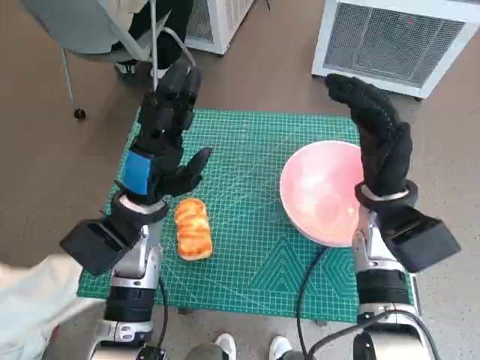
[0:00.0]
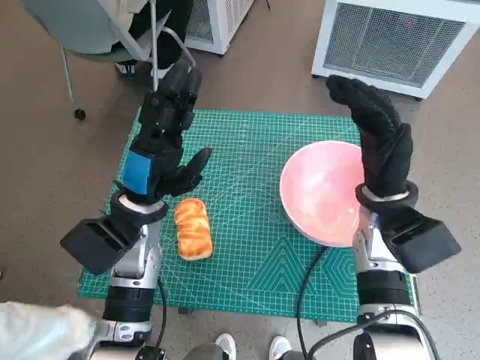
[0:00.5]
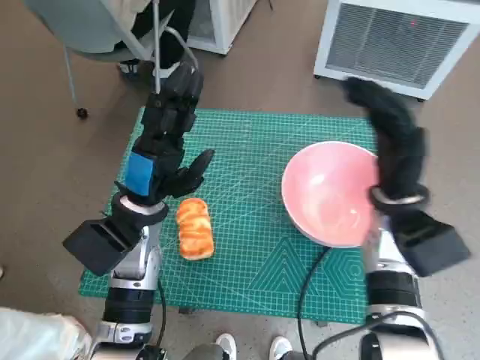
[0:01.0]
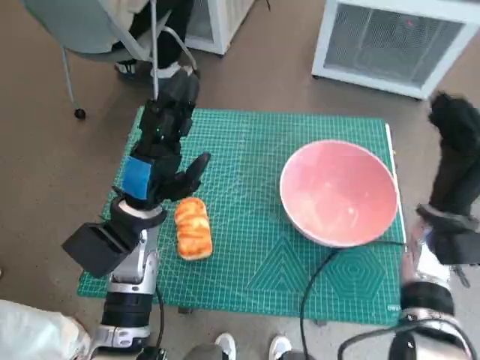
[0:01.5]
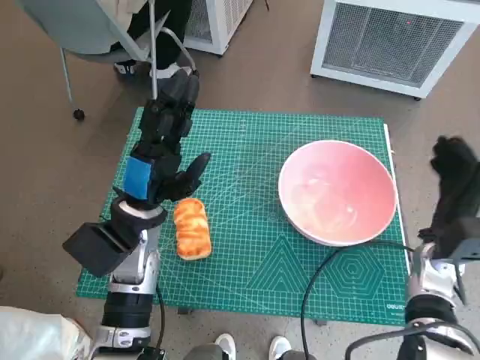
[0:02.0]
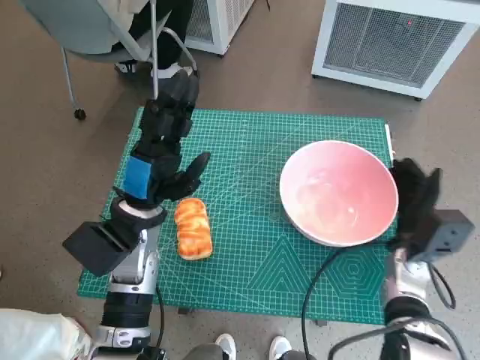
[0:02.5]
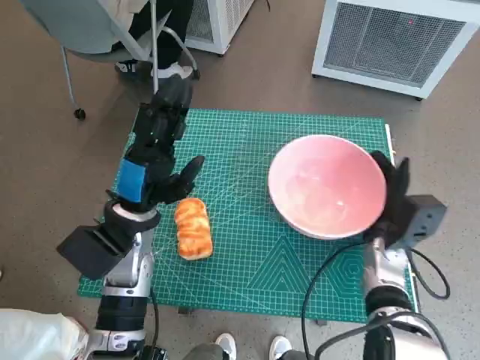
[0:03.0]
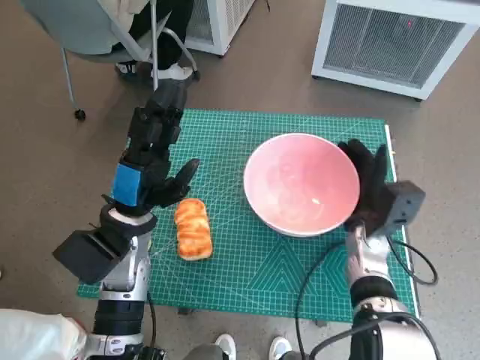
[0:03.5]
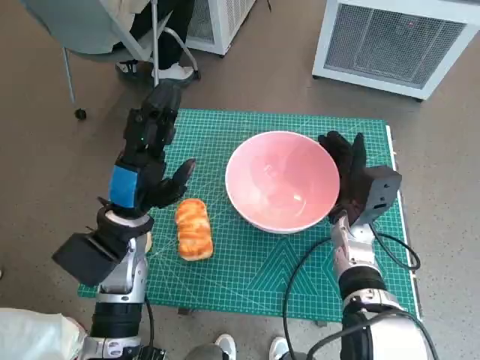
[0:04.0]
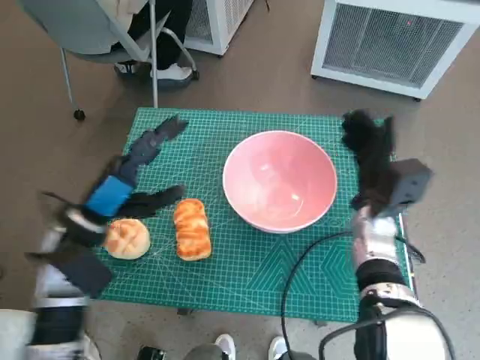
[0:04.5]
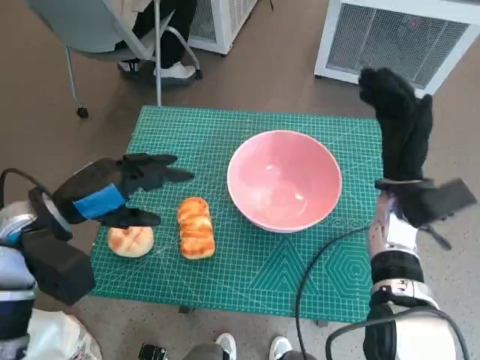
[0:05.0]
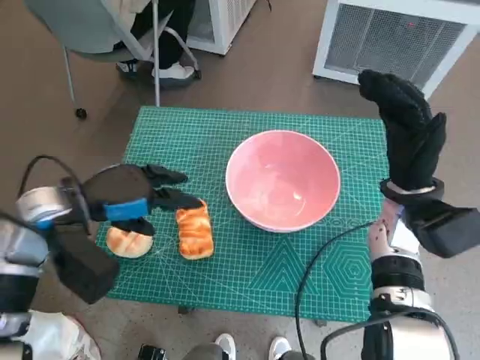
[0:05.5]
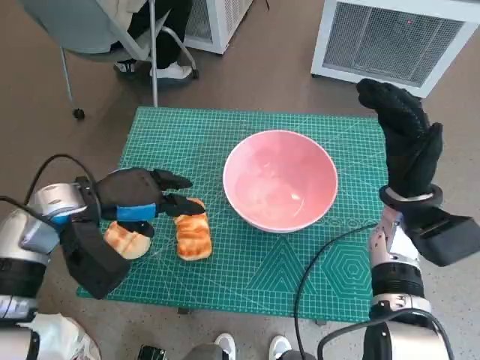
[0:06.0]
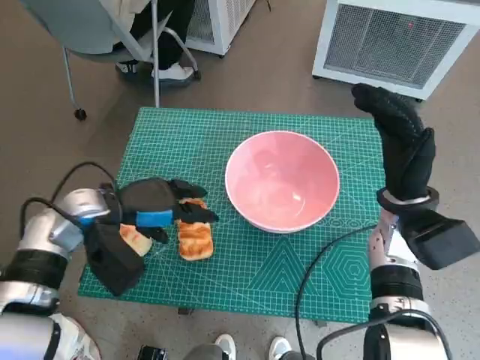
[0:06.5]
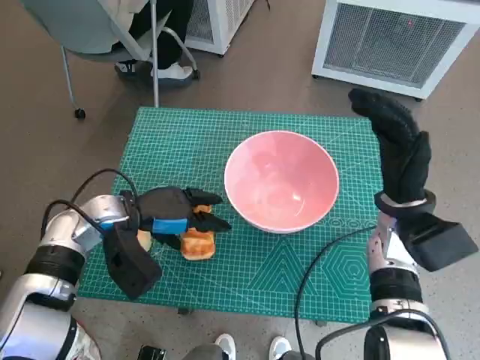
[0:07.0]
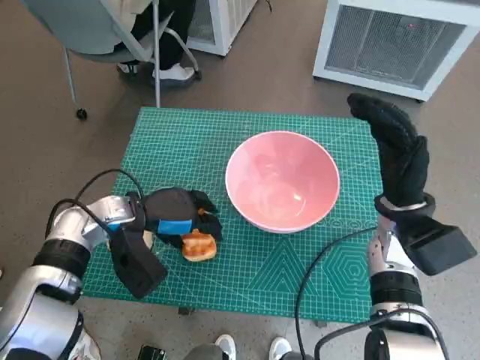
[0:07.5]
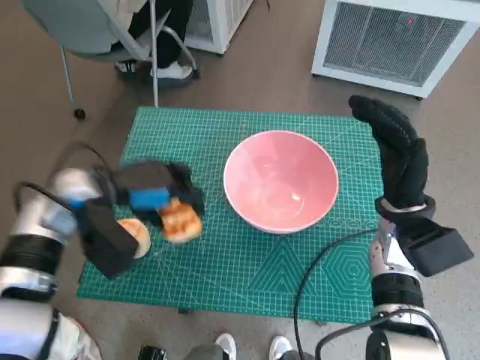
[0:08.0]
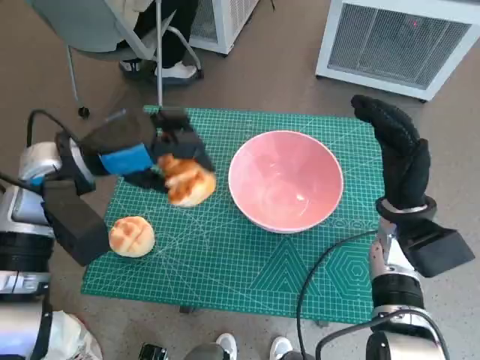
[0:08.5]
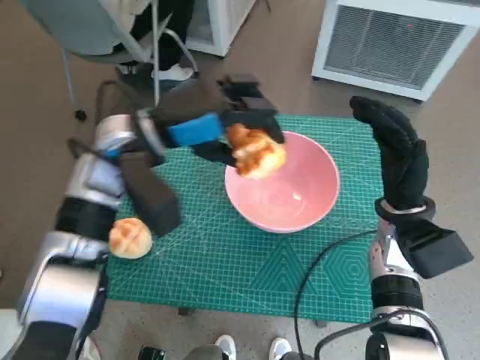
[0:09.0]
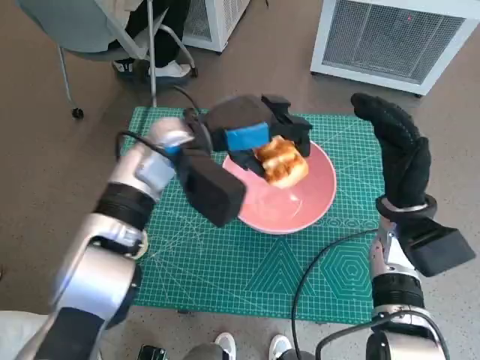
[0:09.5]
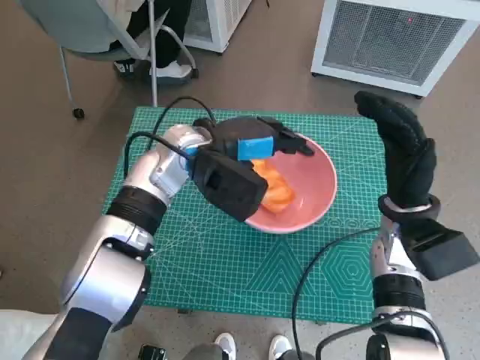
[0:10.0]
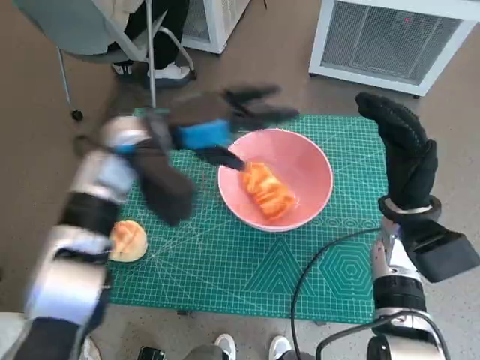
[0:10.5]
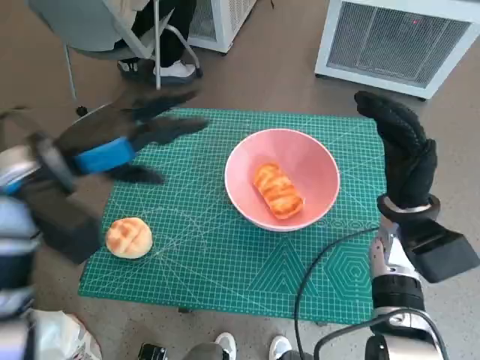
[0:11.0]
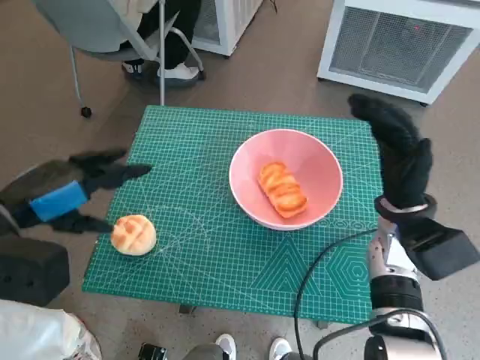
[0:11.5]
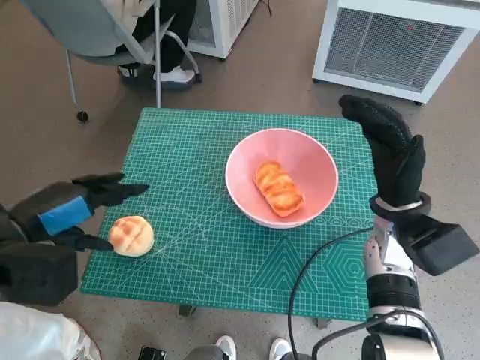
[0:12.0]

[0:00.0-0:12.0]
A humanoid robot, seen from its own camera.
Task of the whole recording: Push the bowl to the center of the table and put the bread into the bowl.
Step, 0:00.0 to 0:04.5: Move the pink bowl to the center of table with right hand.
Step, 0:05.0 to 0:07.5: Grasp the long bread with left hand.
Step, 0:08.0 to 0:10.5: Place the long bread in pink bowl with left hand.
0:02.0 to 0:04.0: The right hand goes about 10 cm to the left.
0:04.0 to 0:06.0: The right hand goes roughly 10 cm upward and to the right; the left hand heads to the left, covering approximately 5 cm.
0:08.0 to 0:10.0: The left hand is displaced to the right by approximately 15 cm.
0:10.0 to 0:12.0: The left hand travels to the left and backward by some 25 cm.

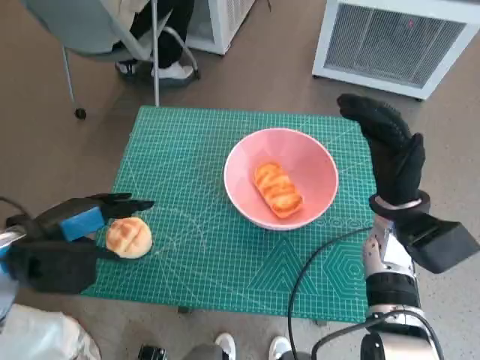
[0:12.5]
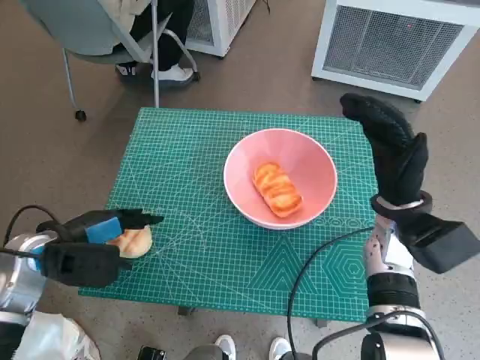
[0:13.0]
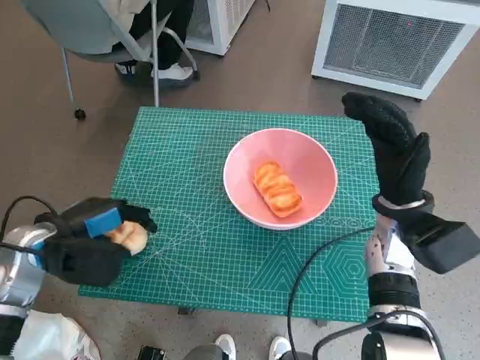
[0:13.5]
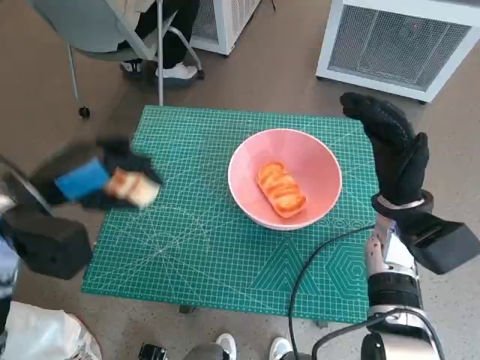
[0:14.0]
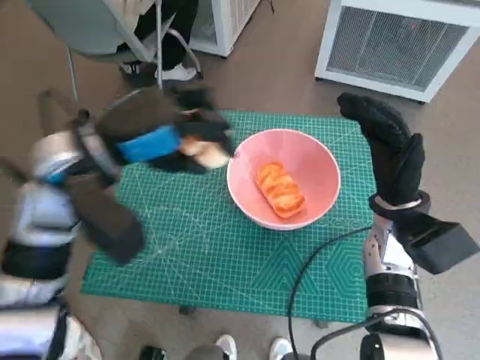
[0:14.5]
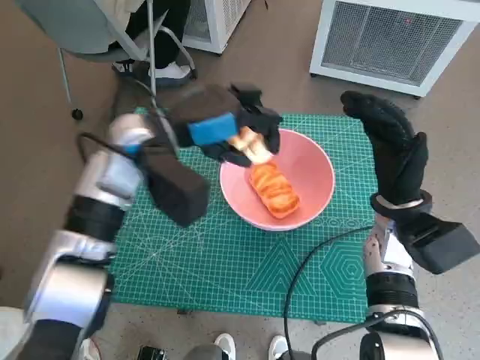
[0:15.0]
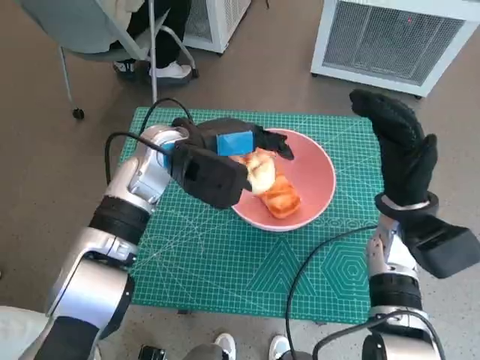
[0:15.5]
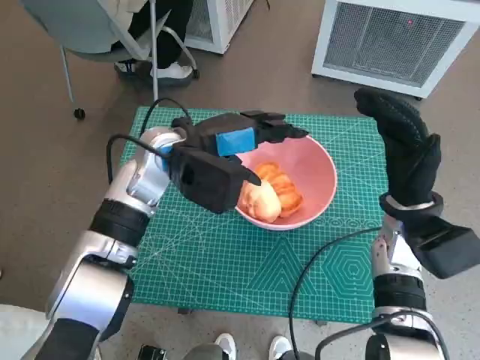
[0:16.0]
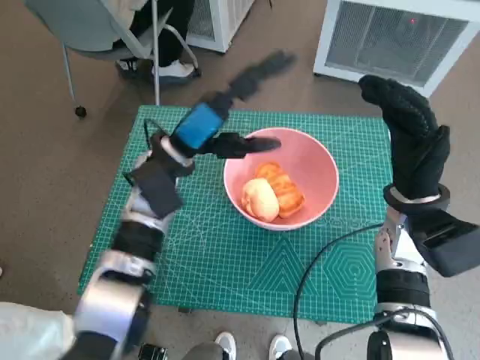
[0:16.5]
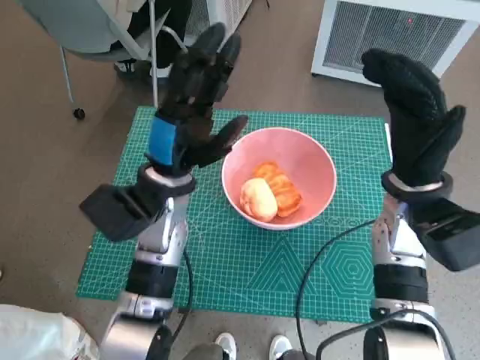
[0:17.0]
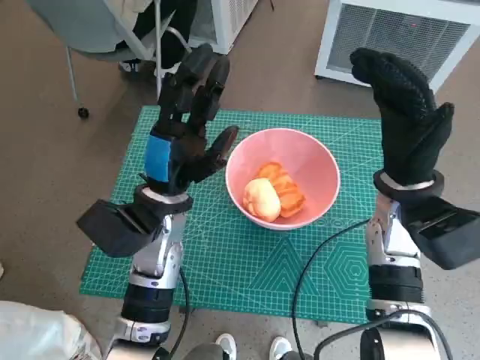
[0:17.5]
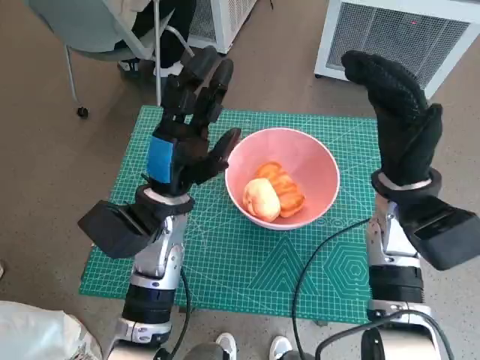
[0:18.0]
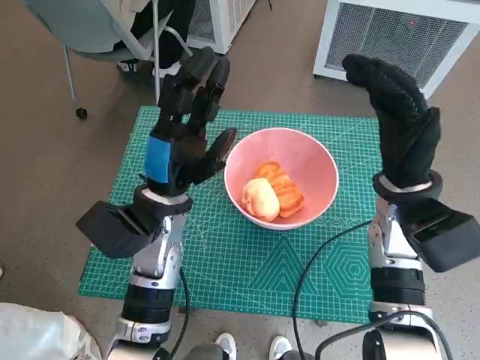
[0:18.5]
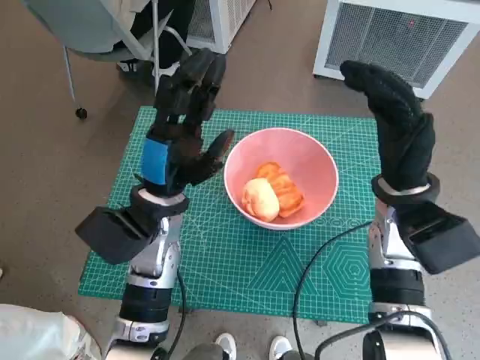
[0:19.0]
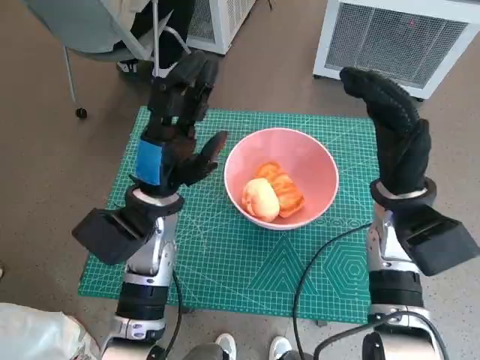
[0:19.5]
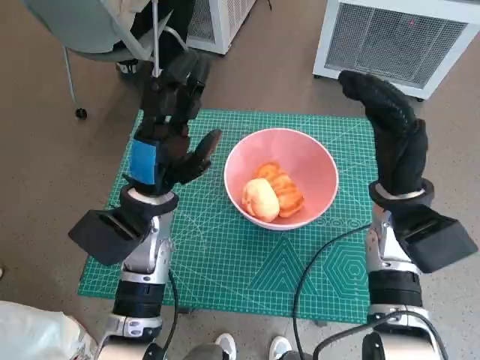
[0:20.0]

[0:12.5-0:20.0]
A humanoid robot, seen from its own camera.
Task of the whole recording: Push the bowl to the center of the table and put the bread into the bowl.
Step, 0:14.0 to 0:16.0: Place the round bread in pink bowl with left hand.
0:12.5 to 0:14.5: The left hand travels to the right, upward and forward by about 15 cm.
0:14.5 to 0:16.5: The left hand moves downward, to the right and forward, about 10 cm.
0:16.5 to 0:18.0: The left hand moves backward, about 5 cm.
0:18.0 to 0:20.0: The hands make only small movements.

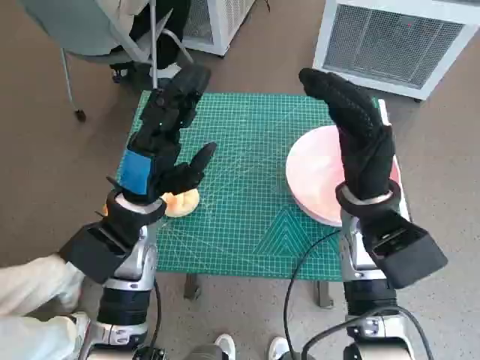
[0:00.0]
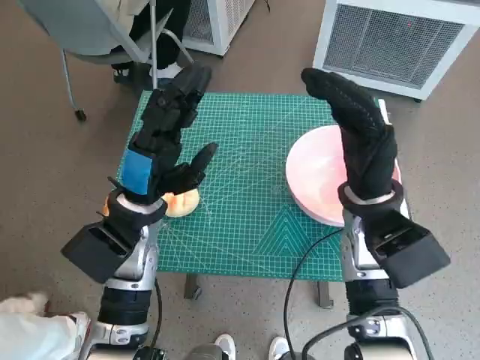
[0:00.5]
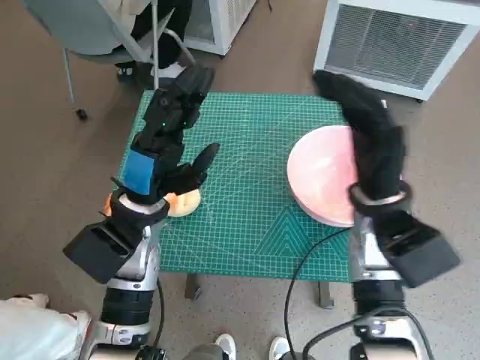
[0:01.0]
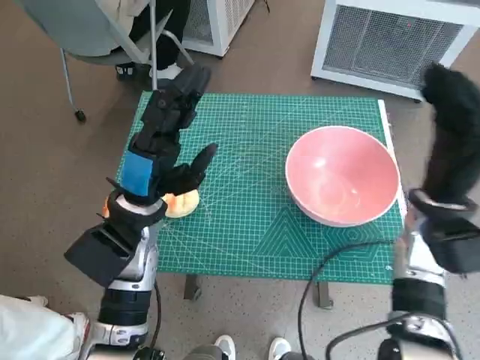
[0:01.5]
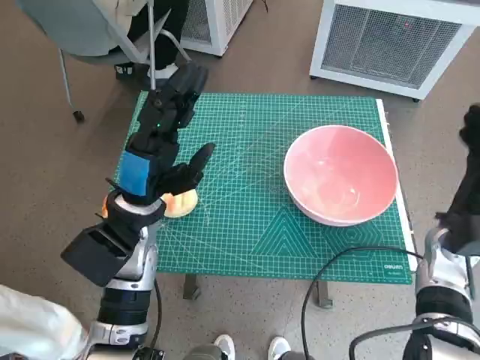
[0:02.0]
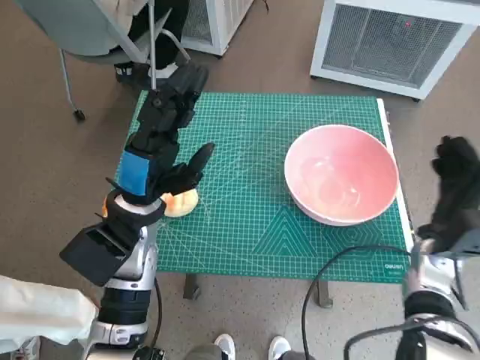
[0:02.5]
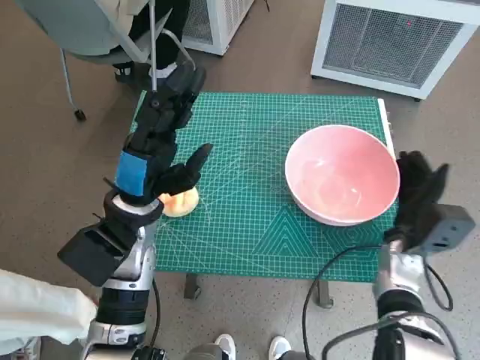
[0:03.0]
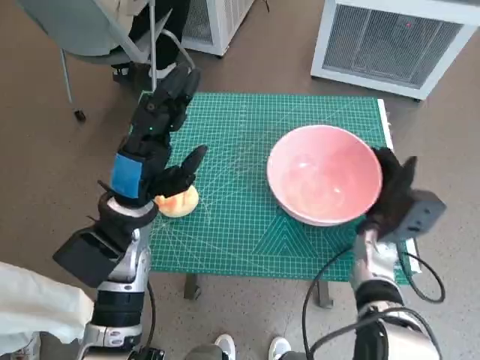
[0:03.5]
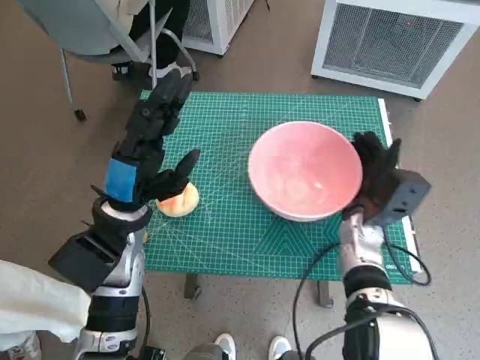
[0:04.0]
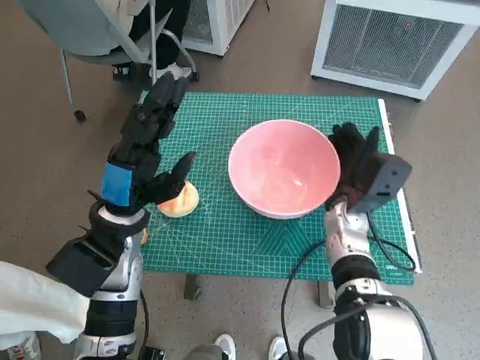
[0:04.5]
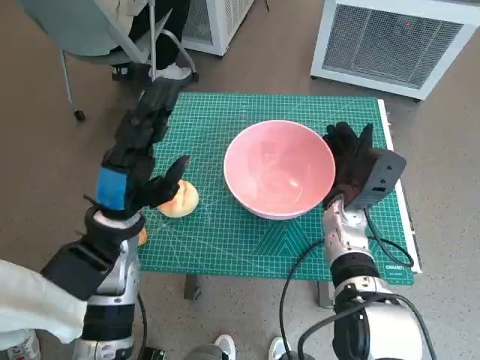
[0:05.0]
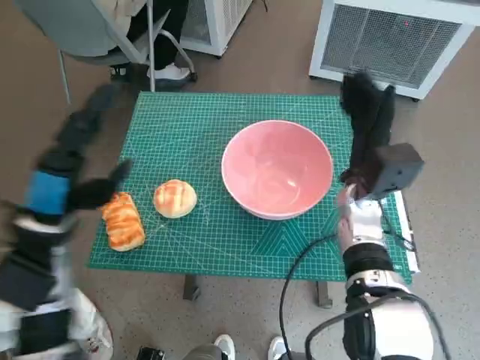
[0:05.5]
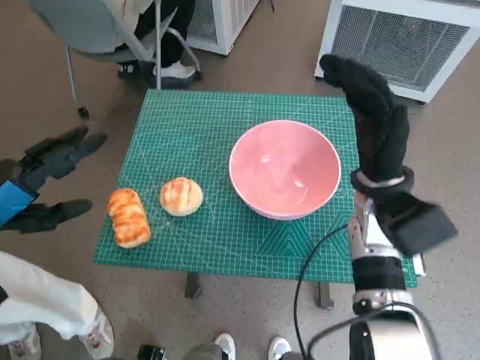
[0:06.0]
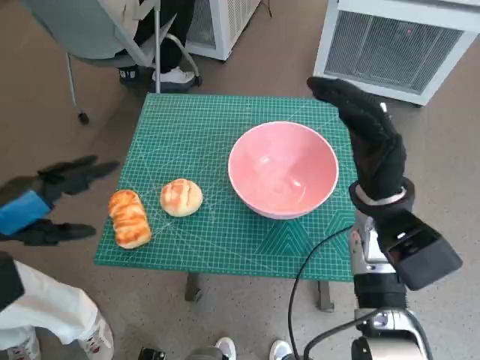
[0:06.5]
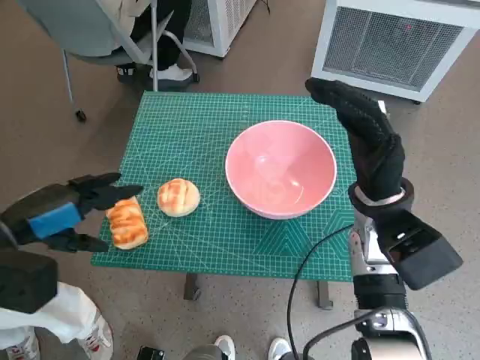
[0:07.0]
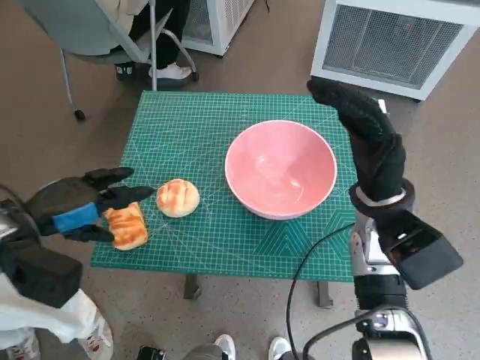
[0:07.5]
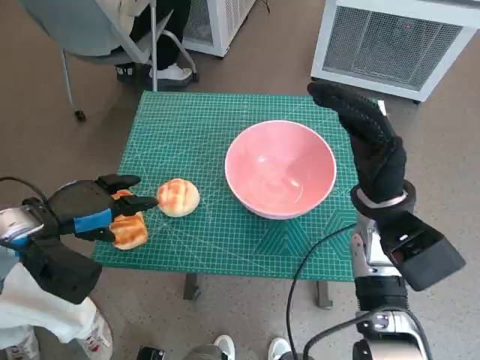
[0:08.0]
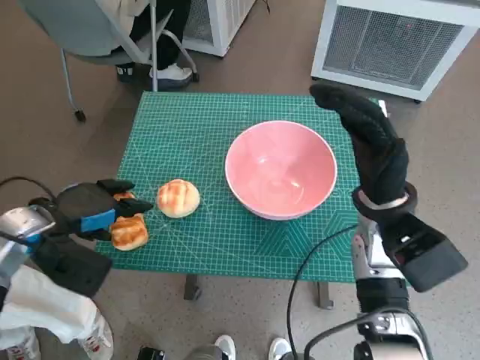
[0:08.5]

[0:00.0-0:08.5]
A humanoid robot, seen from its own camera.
Task of the whole recording: Push the bowl to the center of the table and put the bread into the bowl.
Step, 0:00.0 to 0:05.5: Move the pink bowl to the center of table with right hand.
0:02.0 to 0:04.0: The right hand is displaced to the left by about 10 cm.
0:04.0 to 0:06.5: The left hand shifts some 15 cm to the left, upward and backward, while the right hand travels upward by about 10 cm.
0:06.5 to 0:08.5: The left hand is displaced downward and forward by about 10 cm.
